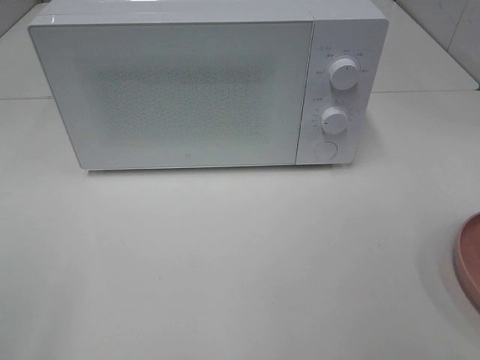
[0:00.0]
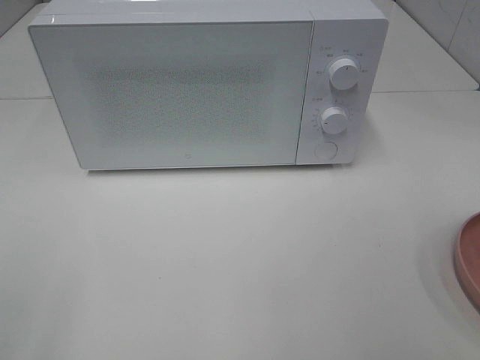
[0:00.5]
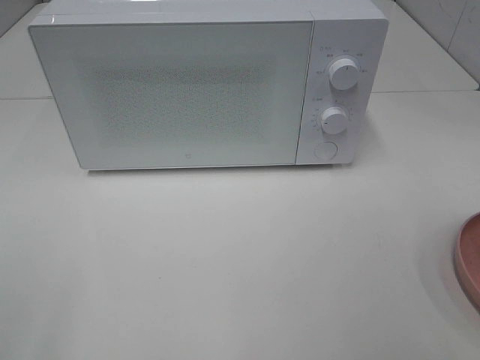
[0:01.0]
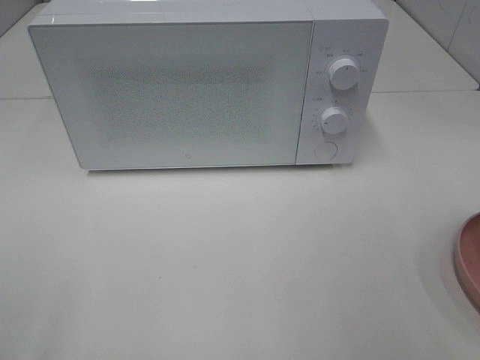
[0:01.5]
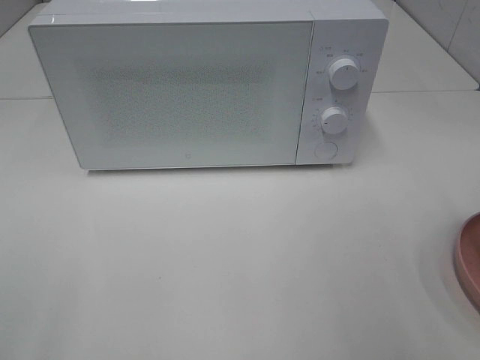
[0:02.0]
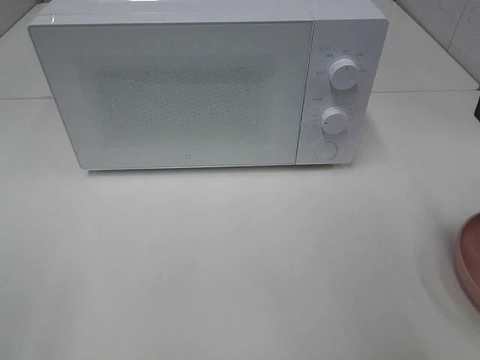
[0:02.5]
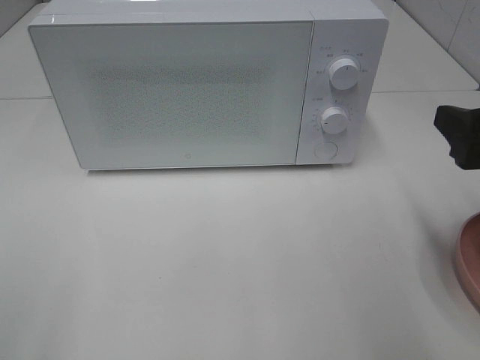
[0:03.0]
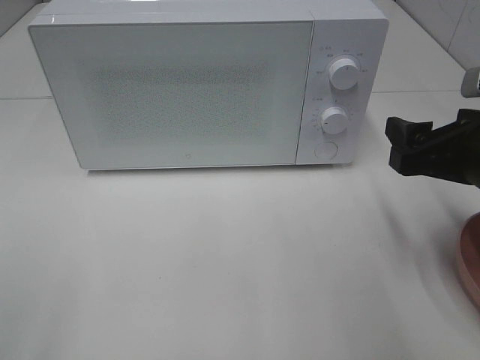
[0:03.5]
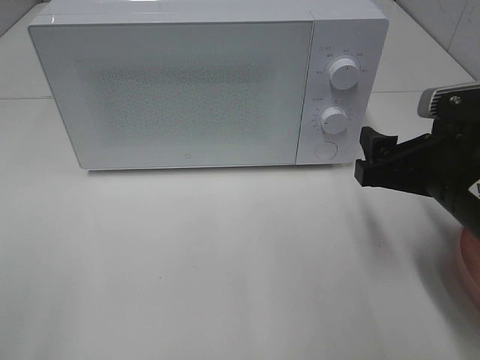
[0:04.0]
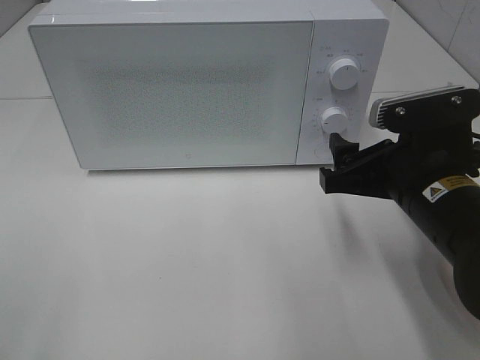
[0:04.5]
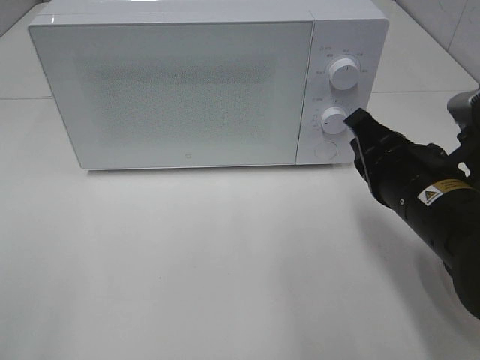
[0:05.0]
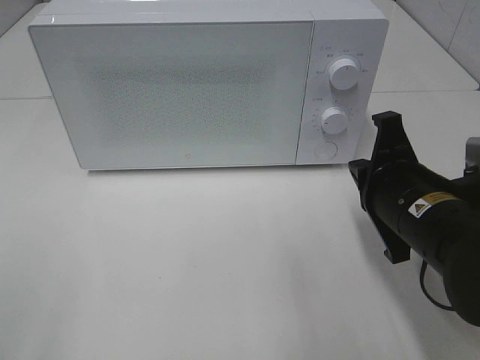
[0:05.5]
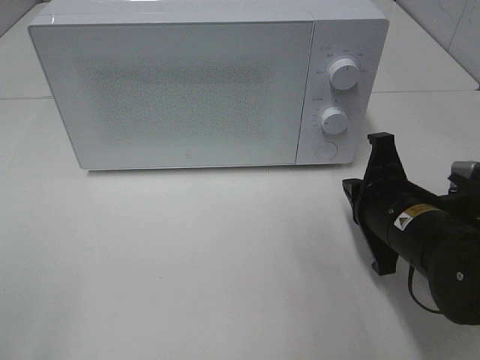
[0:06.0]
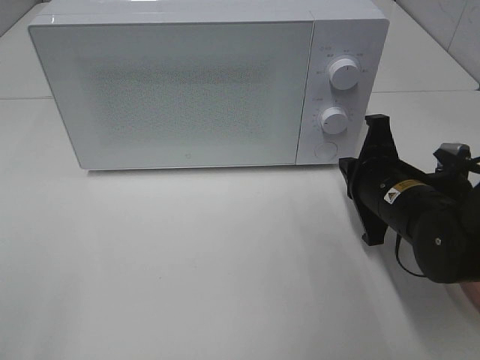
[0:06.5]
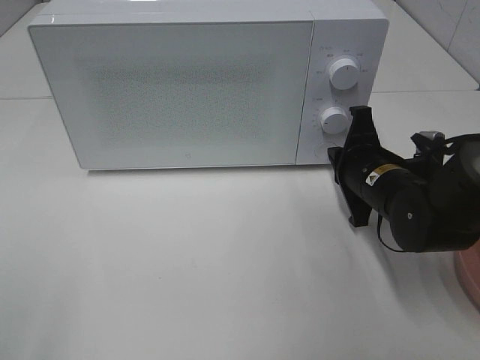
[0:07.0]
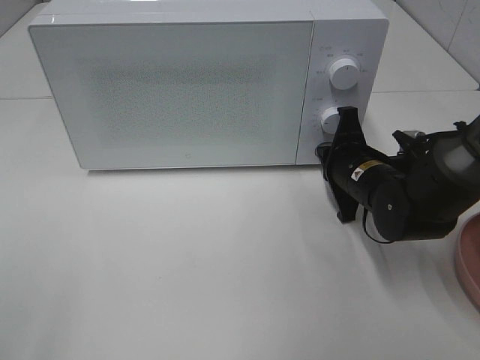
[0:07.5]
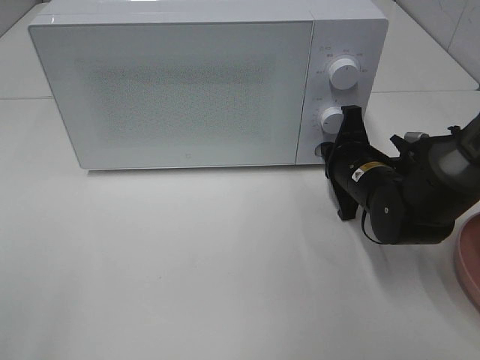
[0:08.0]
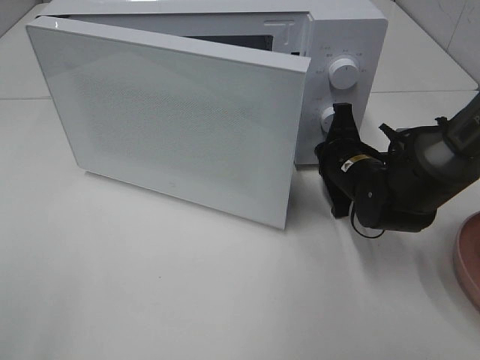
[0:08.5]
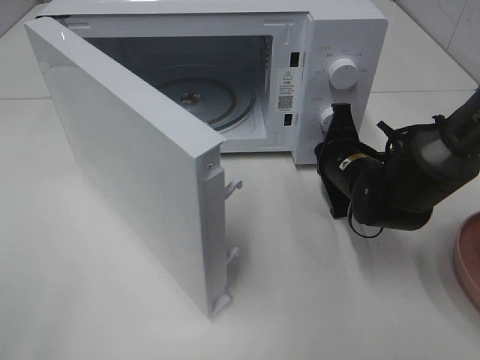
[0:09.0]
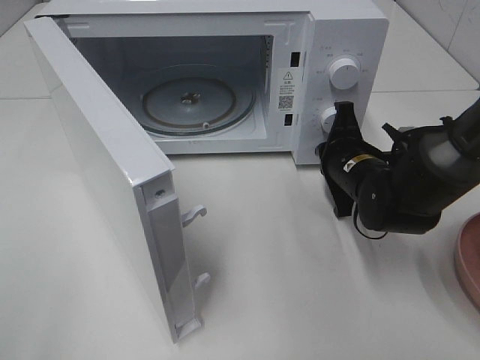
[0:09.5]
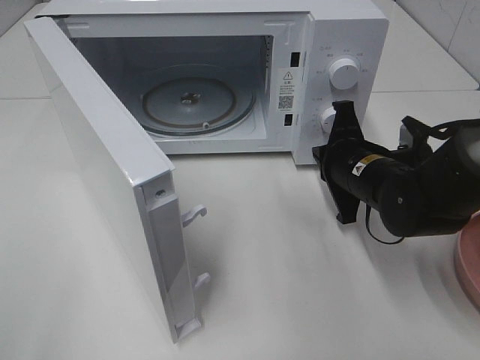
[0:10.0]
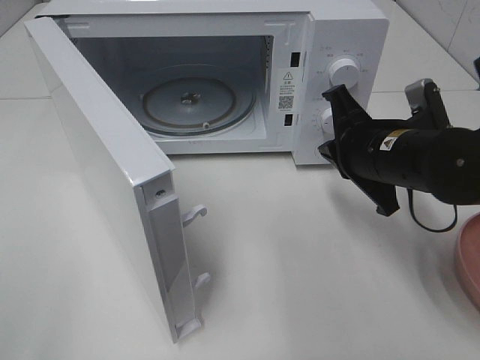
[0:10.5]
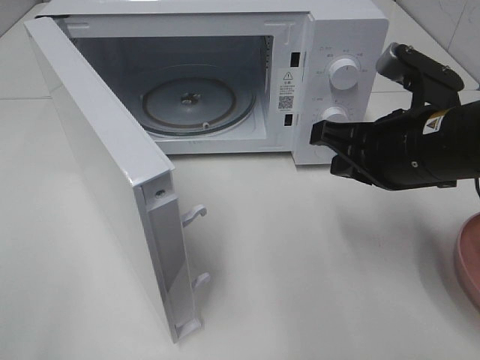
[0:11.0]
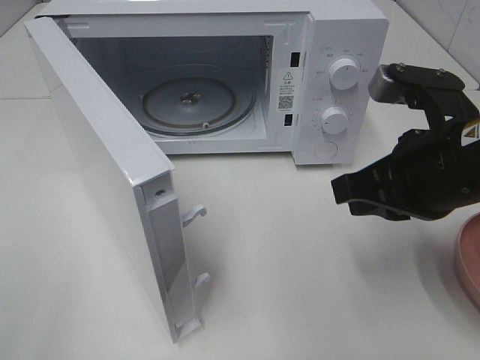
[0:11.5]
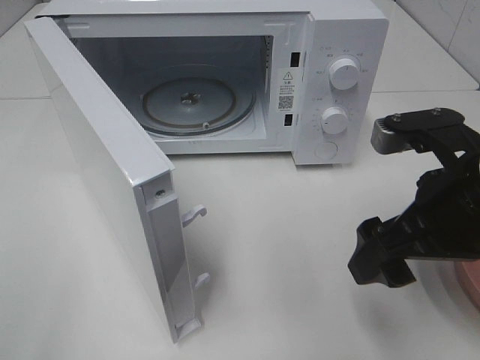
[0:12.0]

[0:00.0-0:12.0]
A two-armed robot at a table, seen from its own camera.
Task of the whole recording: Heat the burger.
Step, 0.0 to 9.5 s: Right hand: press the switch.
2.0 to 4.0 s: The right gripper goes about 15 cm downward, forward and to the left.
4.0 to 6.0 s: The right gripper travels downward by roughly 5 cm, and closes.
6.0 to 8.0 s: The right gripper shifts about 10 cm forward.
10.0 to 12.0 s: The right gripper moves backward and upward, about 15 cm, and opens.

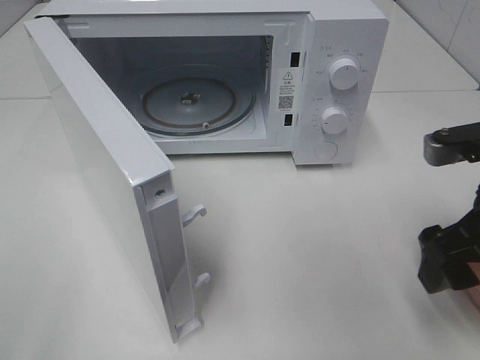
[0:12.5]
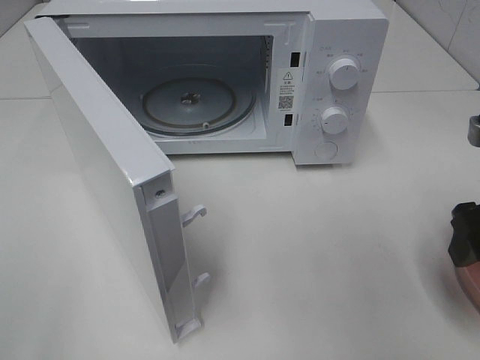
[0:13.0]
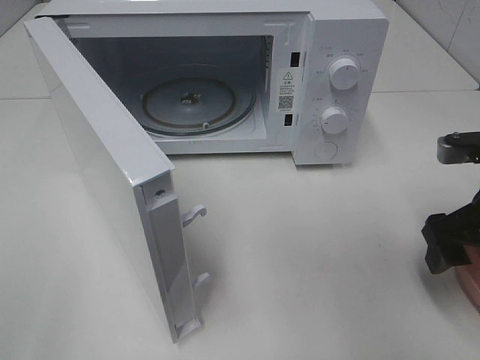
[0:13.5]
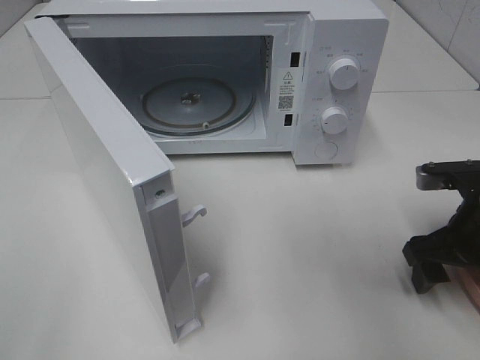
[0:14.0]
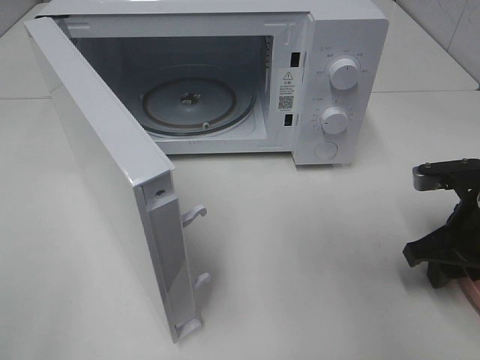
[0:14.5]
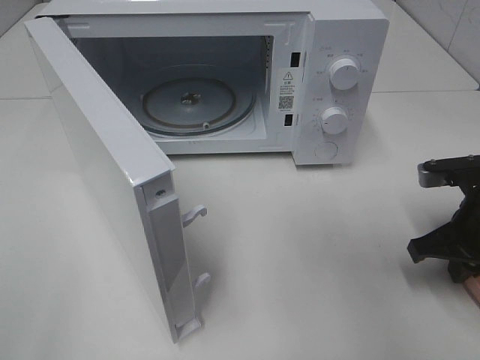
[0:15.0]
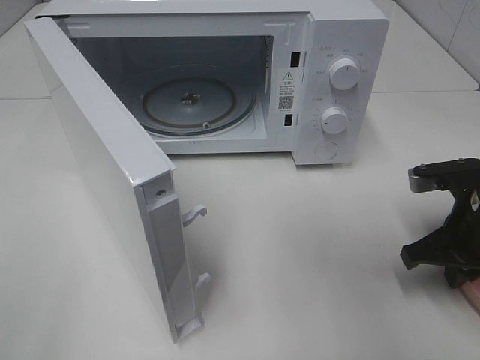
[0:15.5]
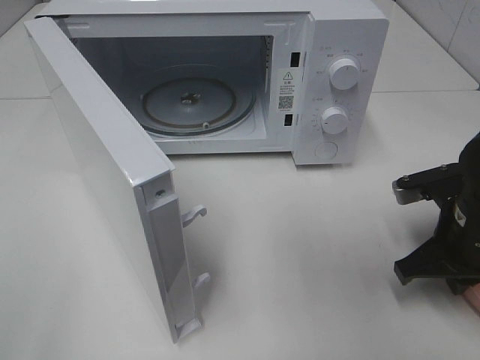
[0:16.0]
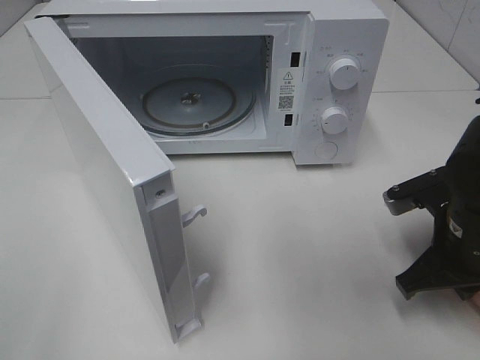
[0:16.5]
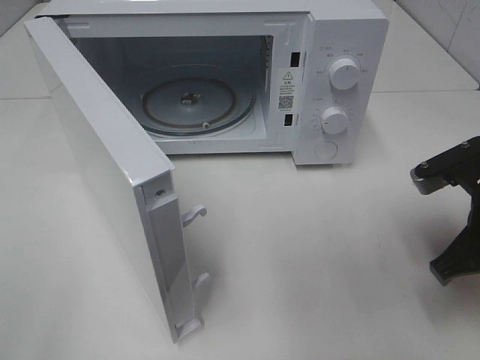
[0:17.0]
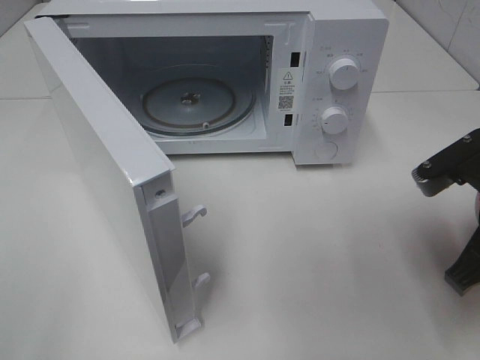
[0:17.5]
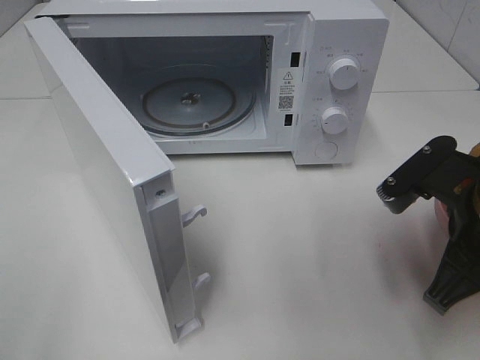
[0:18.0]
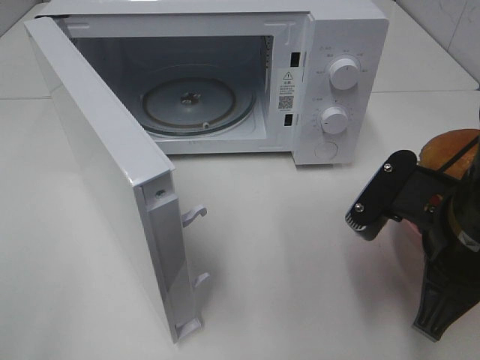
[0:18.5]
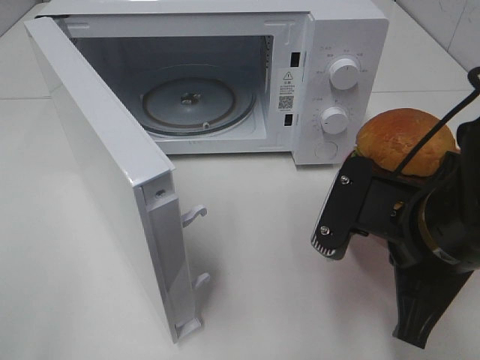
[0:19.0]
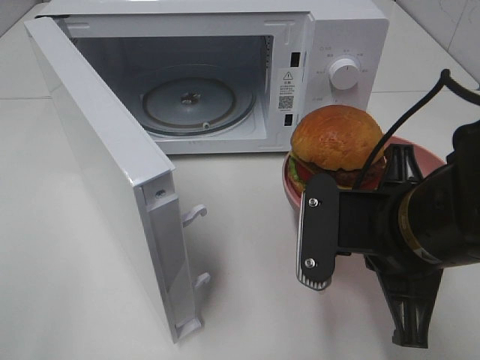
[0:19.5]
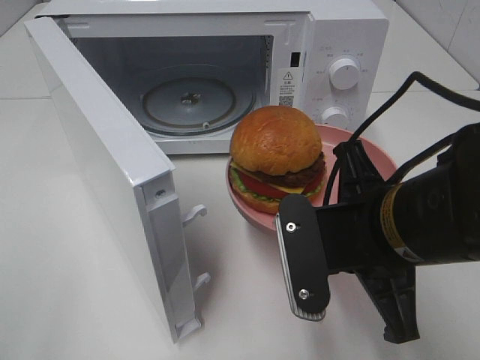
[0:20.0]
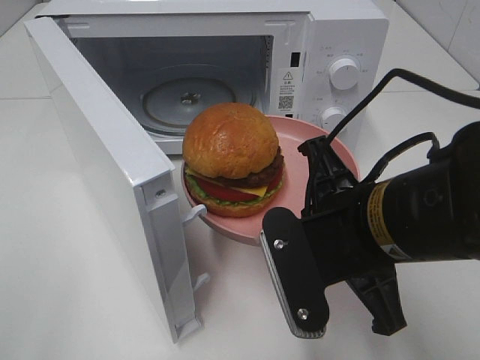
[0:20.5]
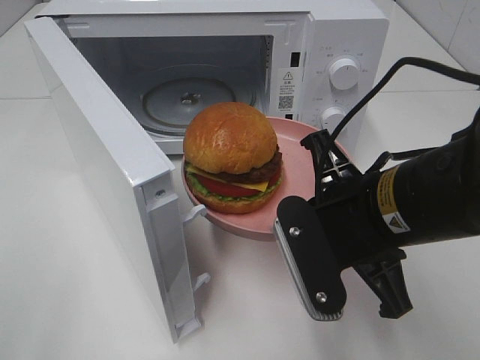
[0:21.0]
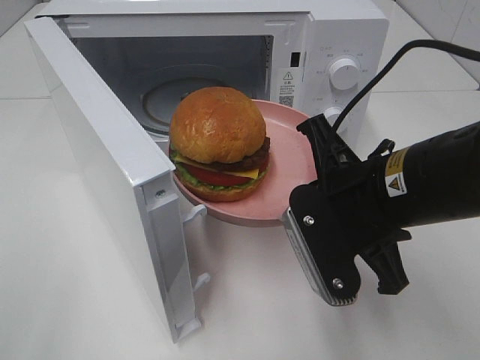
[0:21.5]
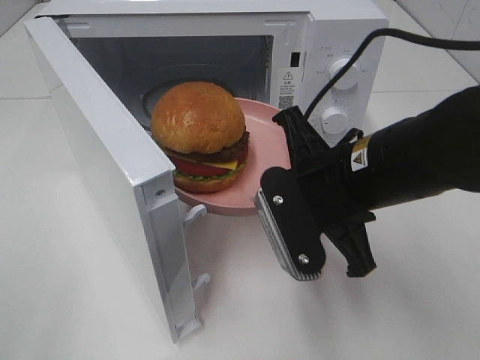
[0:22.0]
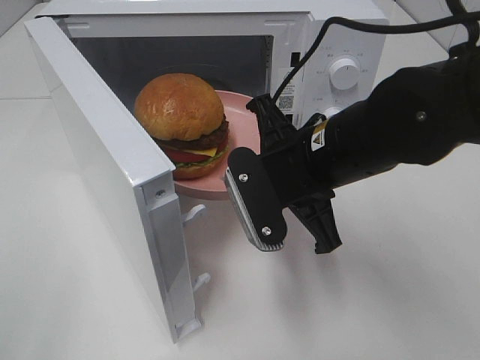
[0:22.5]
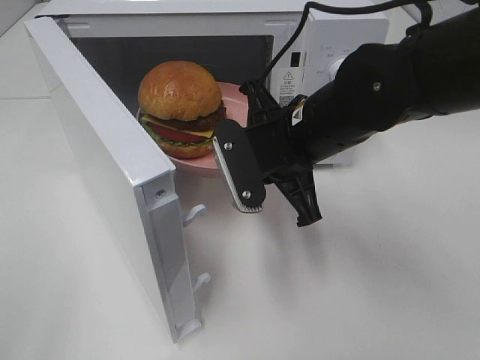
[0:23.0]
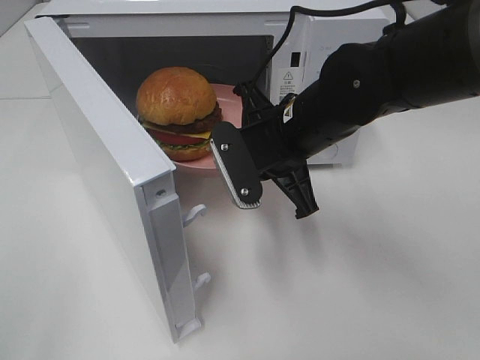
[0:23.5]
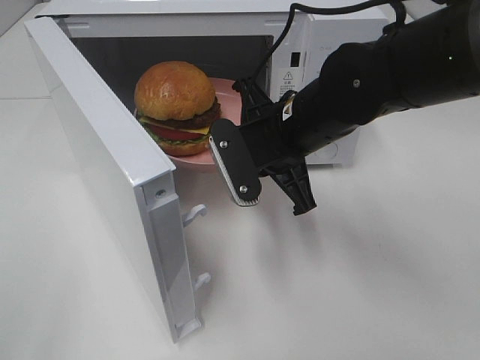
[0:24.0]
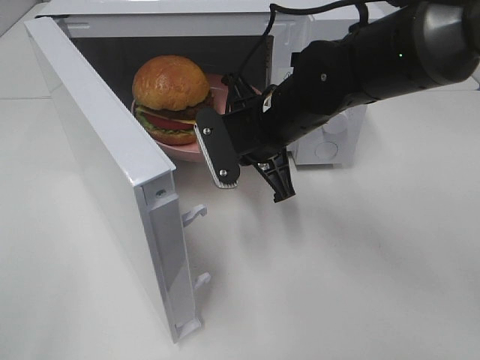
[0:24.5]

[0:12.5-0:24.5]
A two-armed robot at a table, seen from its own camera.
Task of the whole recording: Heat the burger.
Step, 12.5 to 14.5 s: Right hand: grab the plate with the hamburger.
12.5 to 14.5 s: The right gripper is displaced downward and forward by roughly 10 cm, and closes up.
14.5 to 16.5 s: The right gripper ends up about 5 cm from where it was, and closes.
16.5 to 18.5 s: The right gripper goes approximately 10 cm upward, backward and to the left.
18.5 to 20.5 s: The right gripper is displaced to the left by approximately 5 cm.
20.5 to 22.5 s: The right gripper travels forward by some 10 cm.
22.5 to 24.5 s: The right gripper is displaced forward by about 10 cm.

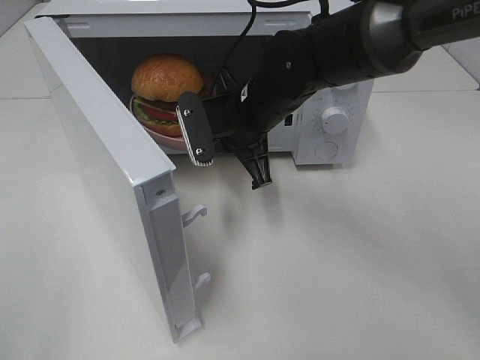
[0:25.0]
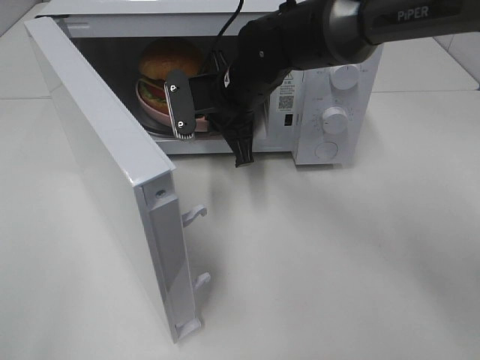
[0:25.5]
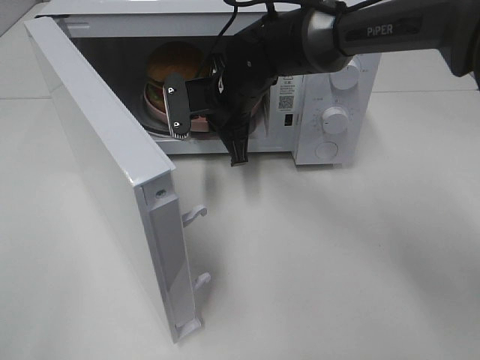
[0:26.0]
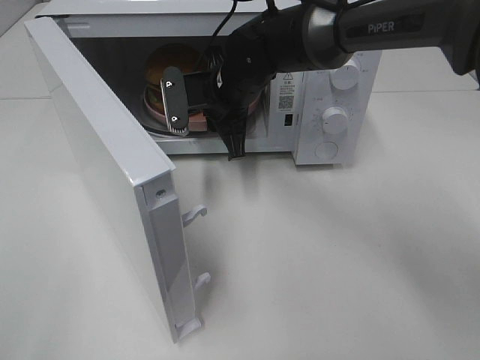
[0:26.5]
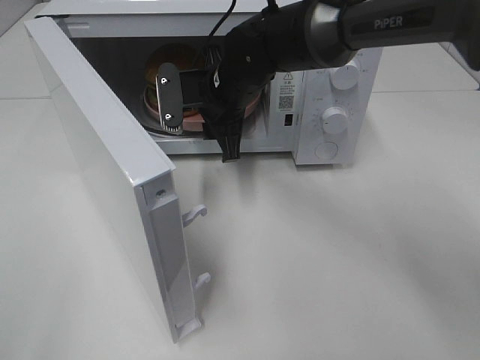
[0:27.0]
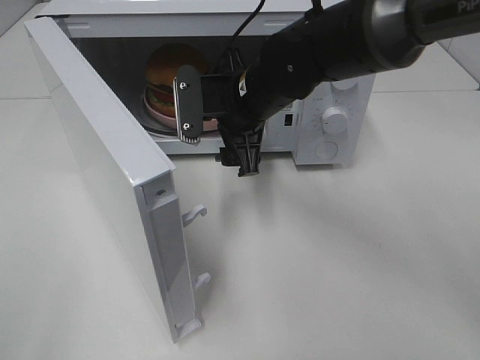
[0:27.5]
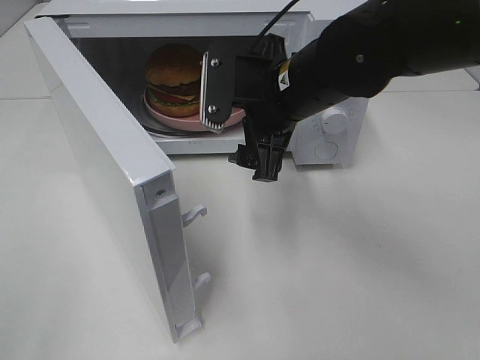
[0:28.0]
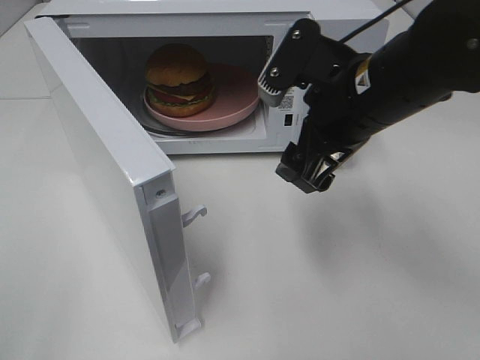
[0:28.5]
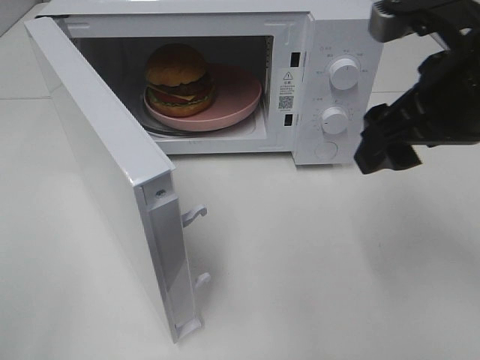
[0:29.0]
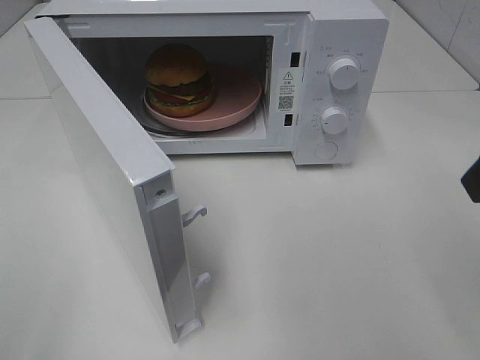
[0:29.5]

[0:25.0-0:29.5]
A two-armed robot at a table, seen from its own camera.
Task of the whole recording: Heat the burger.
25.0 to 27.0 s: The right gripper changes place by some 5 cm, and opens up.
27.0 to 29.5 s: The right gripper moves backward, to the right and upward, about 40 cm.
